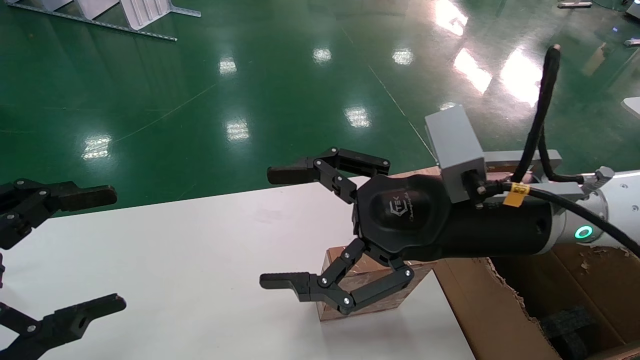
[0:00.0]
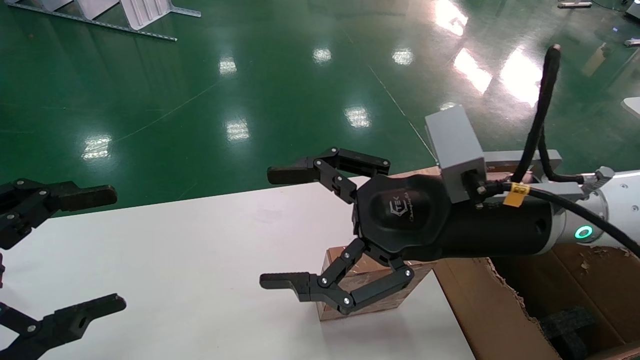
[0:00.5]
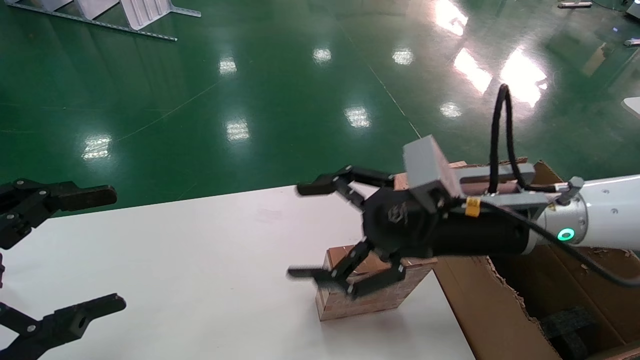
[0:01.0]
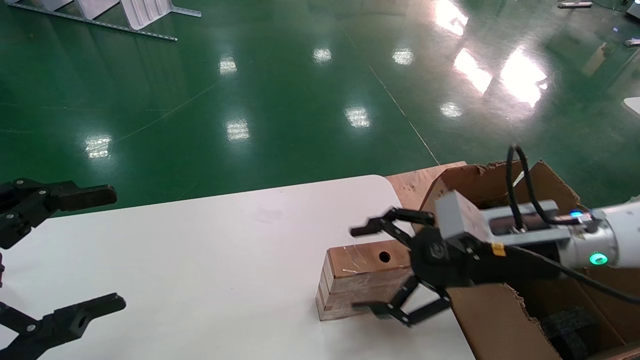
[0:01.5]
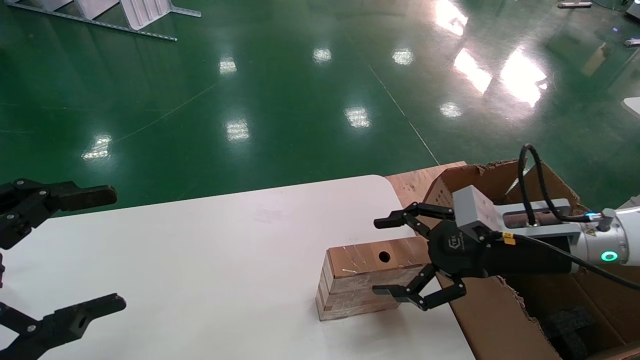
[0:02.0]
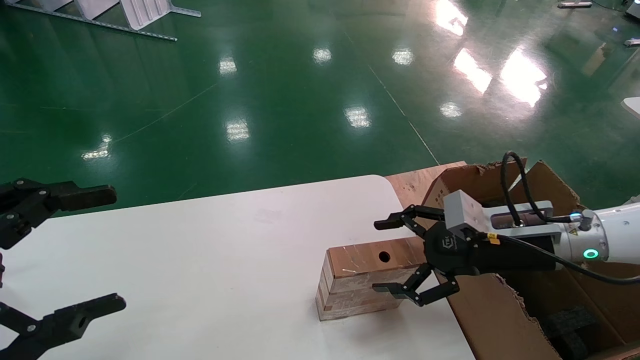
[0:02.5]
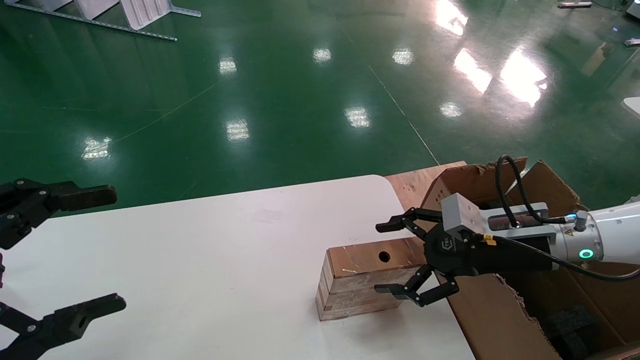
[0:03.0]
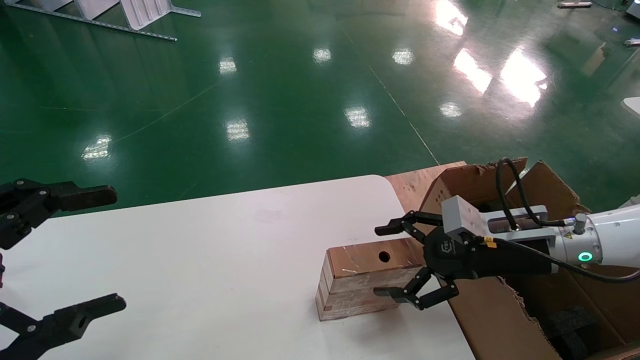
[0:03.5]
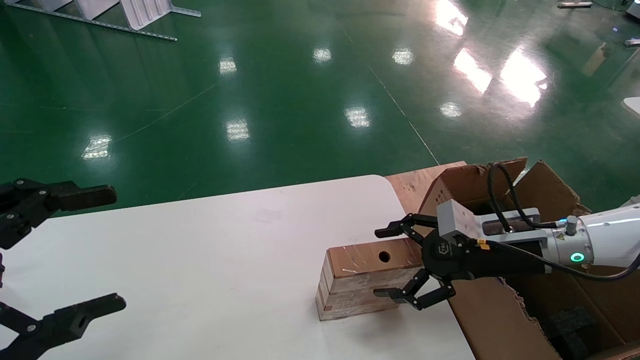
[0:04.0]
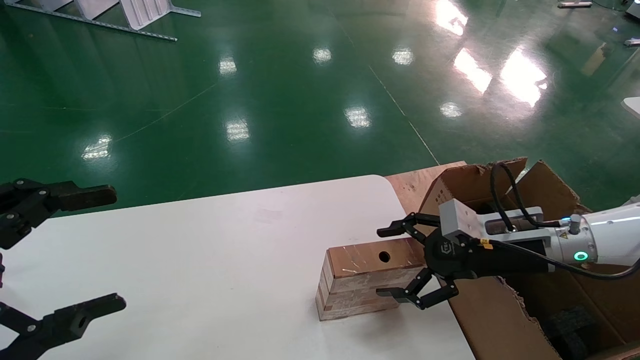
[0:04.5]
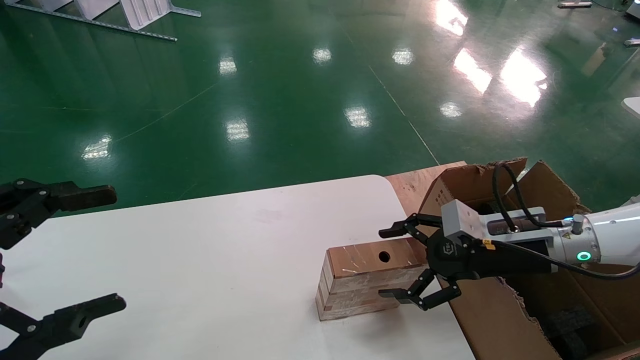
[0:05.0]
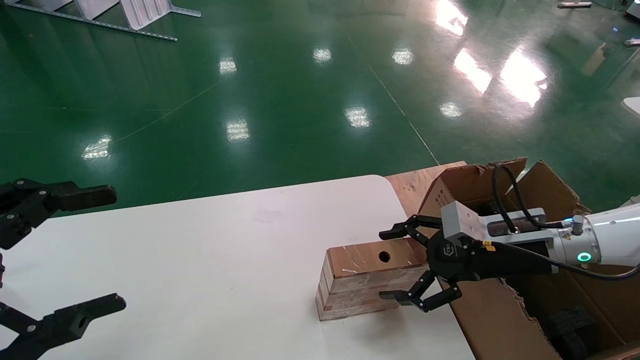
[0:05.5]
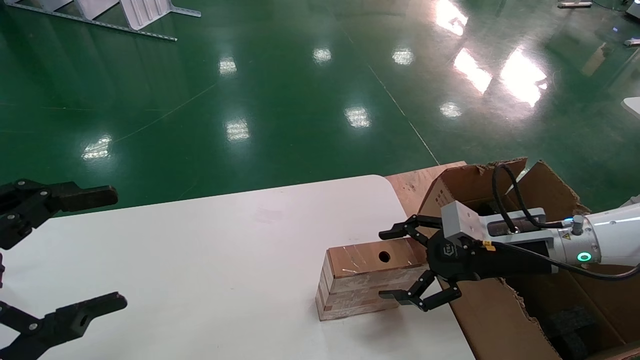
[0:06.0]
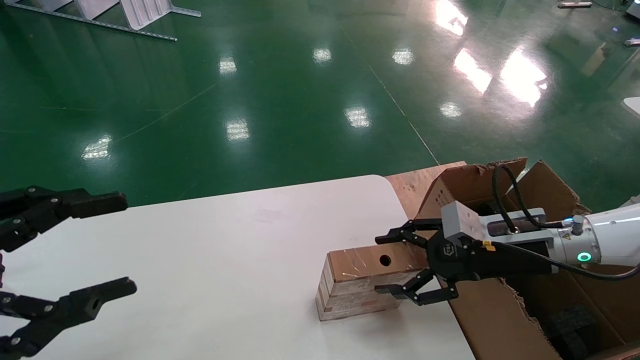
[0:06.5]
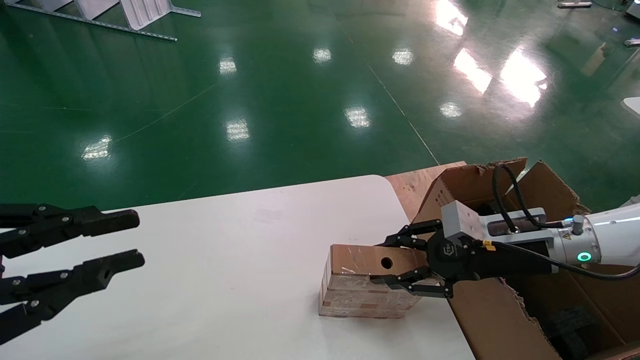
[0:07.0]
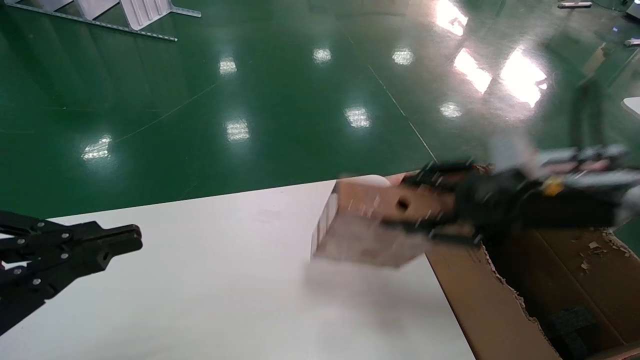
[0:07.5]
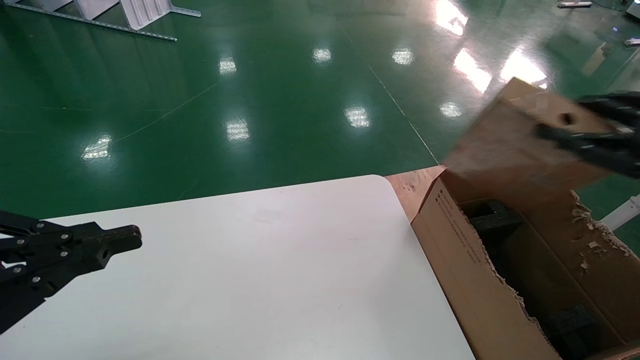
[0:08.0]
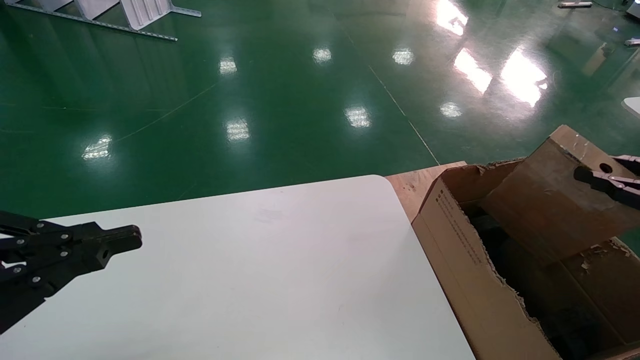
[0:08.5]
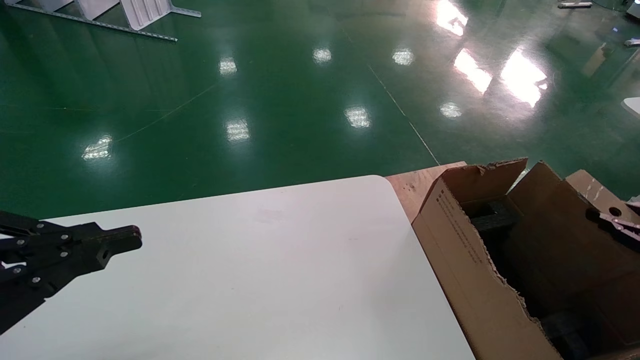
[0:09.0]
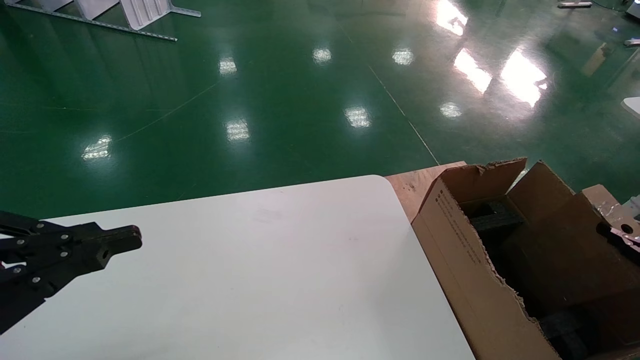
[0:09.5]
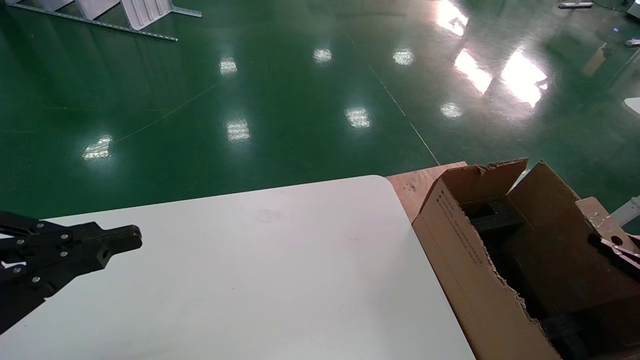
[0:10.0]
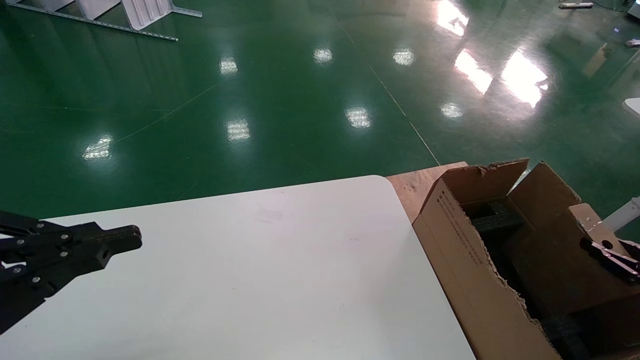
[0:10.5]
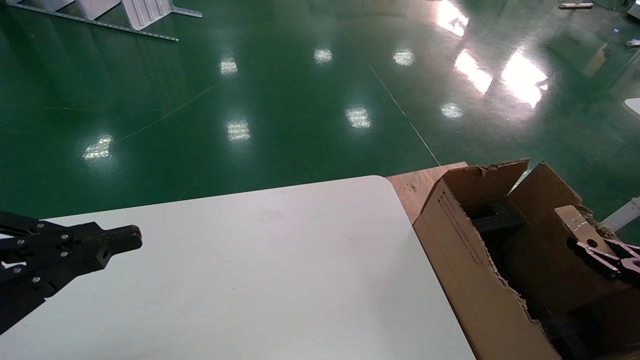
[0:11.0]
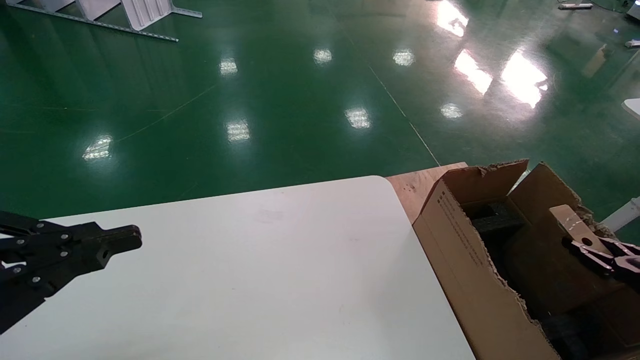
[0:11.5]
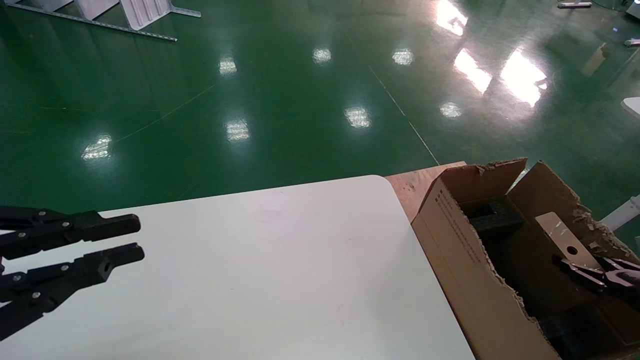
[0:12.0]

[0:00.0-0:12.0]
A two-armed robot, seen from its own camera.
Task of the whole recording: put the box on the table into the big box.
Step, 0:01.5 to 0:06.5: Pick up the mouse and the power cord paper box.
0:00.0 to 0:02.0: The right gripper travels to the right and downward by some 15 cm.
0:02.0 to 0:04.0: The grippers move only a little.
0:04.0 to 0:06.0: Both grippers stay put.
0:06.0 to 0:08.0: The right gripper travels to the right, upward and backward by some 25 cm, and closes up; the left gripper closes its fingers.
0:08.0 to 0:10.0: The right gripper travels downward and to the right by some 25 cm.
0:10.0 to 0:12.0: The right gripper ends up some 5 cm from where it was.

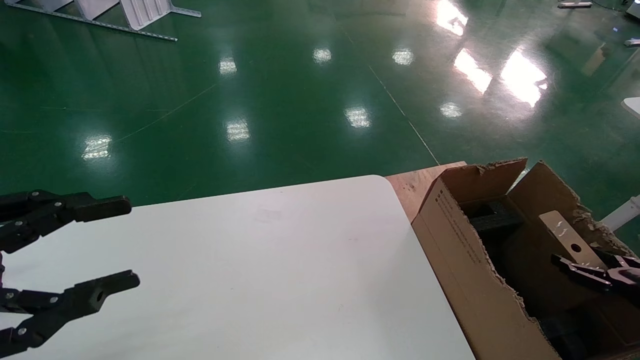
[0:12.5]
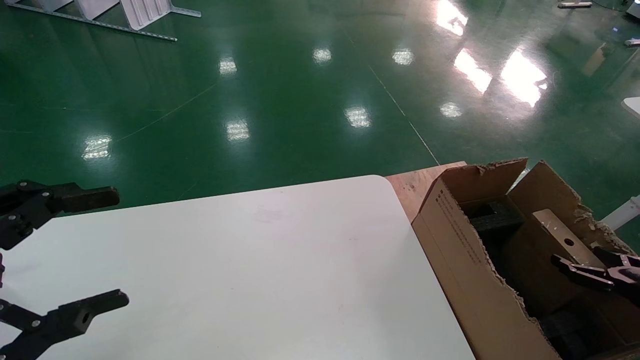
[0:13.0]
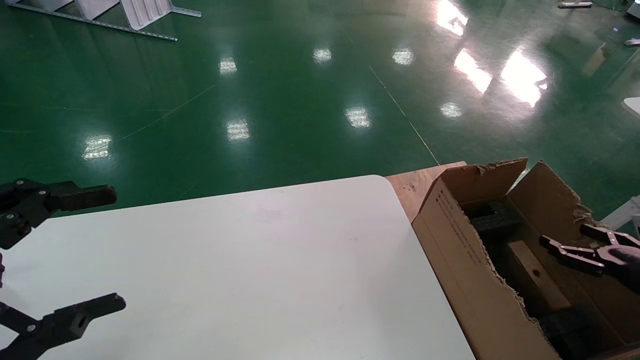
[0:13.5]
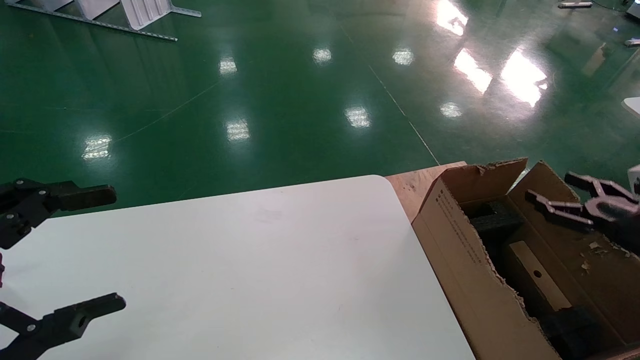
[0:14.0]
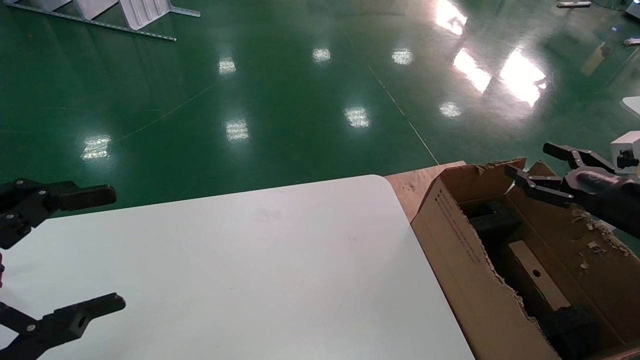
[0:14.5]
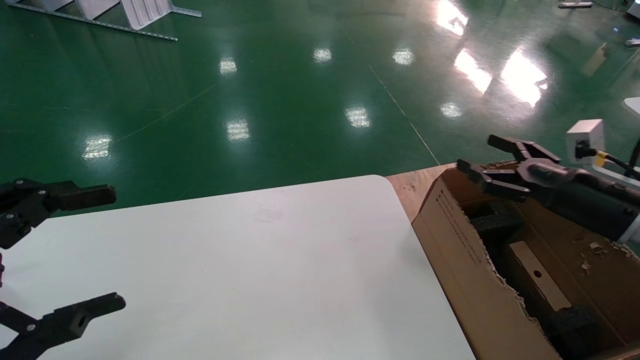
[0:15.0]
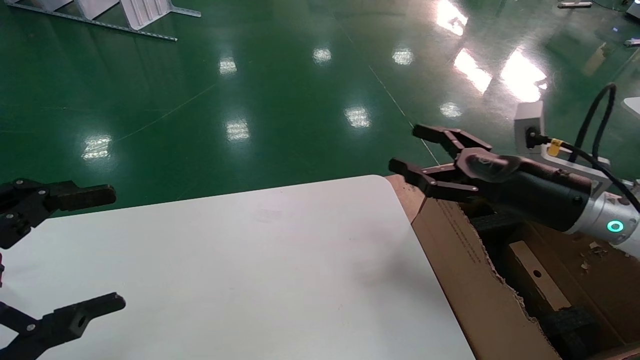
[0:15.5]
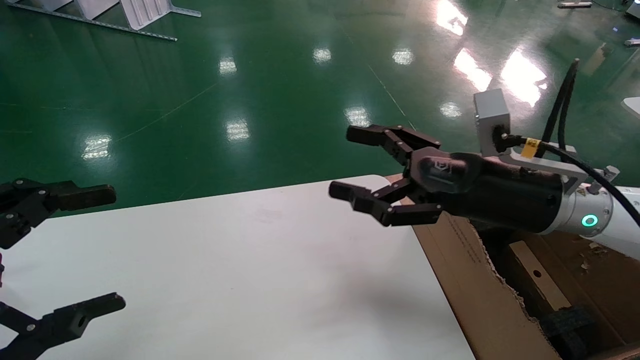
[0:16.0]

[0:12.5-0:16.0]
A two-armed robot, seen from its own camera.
Task of the whole recording: put the box on the table into the big box.
0:12.5 to 0:14.5: The right gripper travels upward, forward and to the left by some 15 cm, and opens its fingers, while the left gripper opens up.
0:14.5 to 0:16.0: The right gripper travels to the left by approximately 25 cm.
